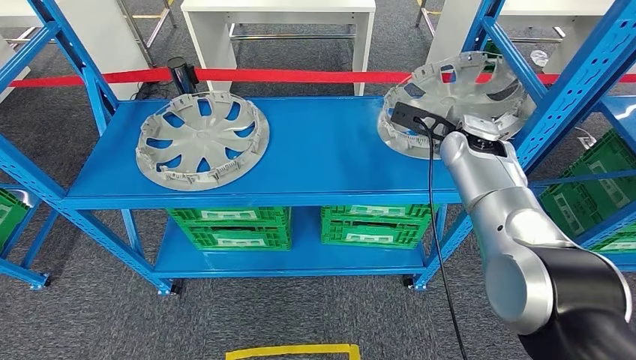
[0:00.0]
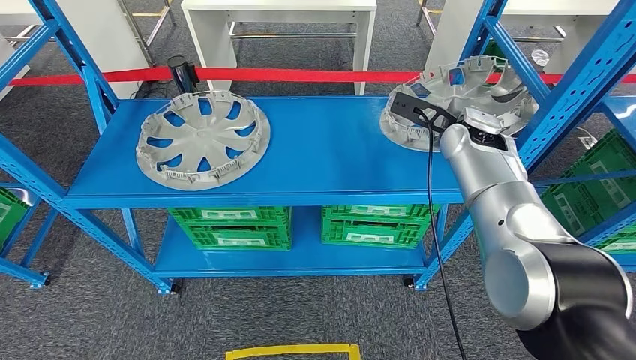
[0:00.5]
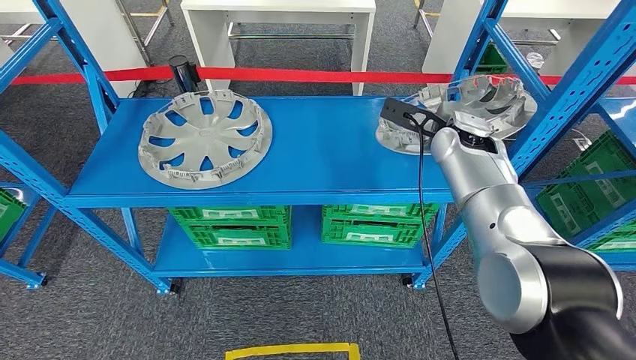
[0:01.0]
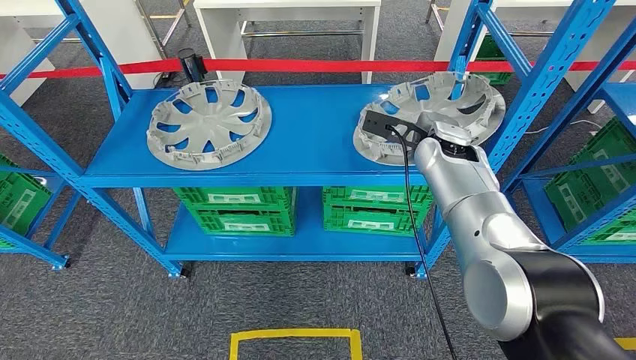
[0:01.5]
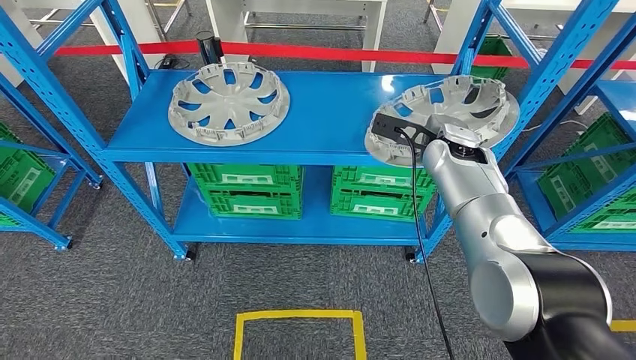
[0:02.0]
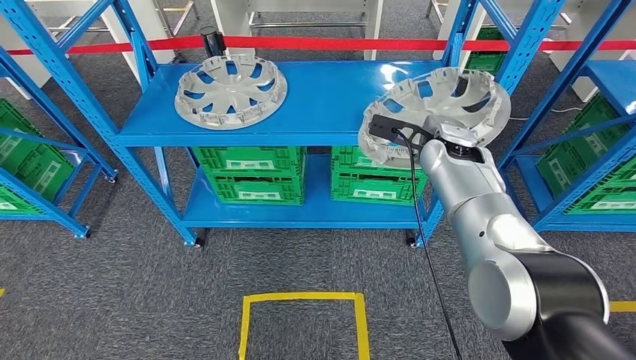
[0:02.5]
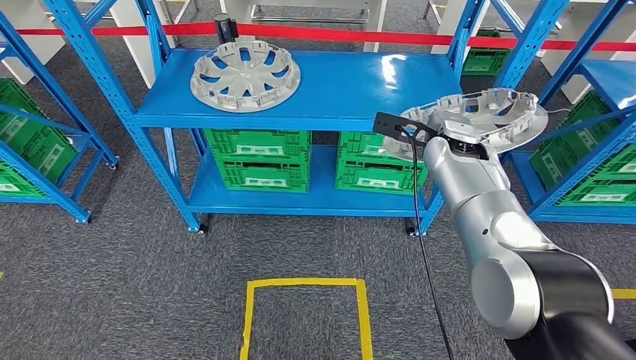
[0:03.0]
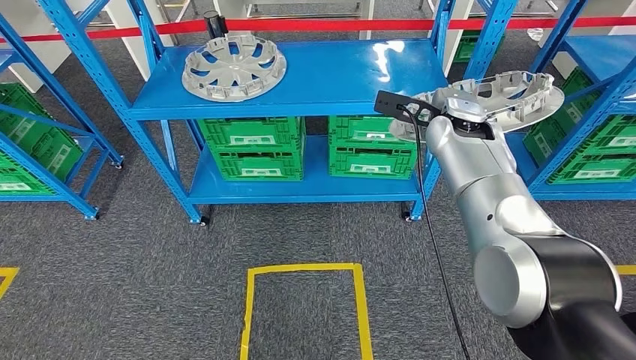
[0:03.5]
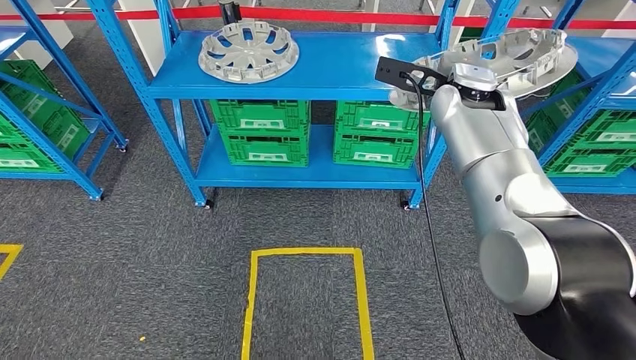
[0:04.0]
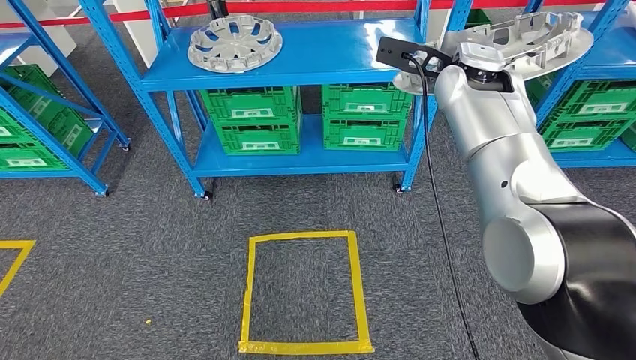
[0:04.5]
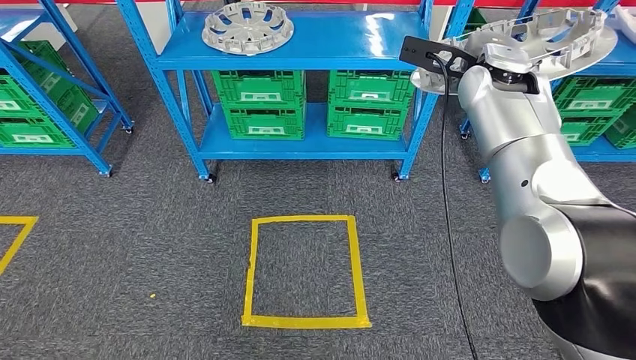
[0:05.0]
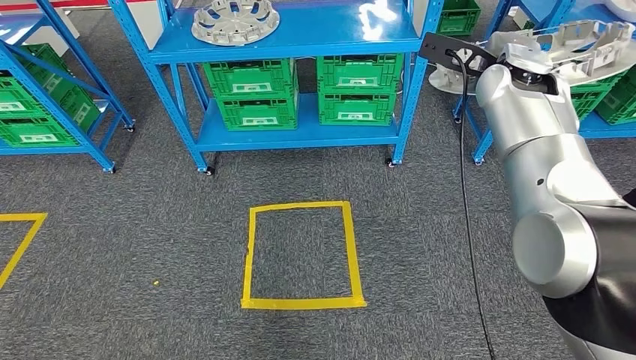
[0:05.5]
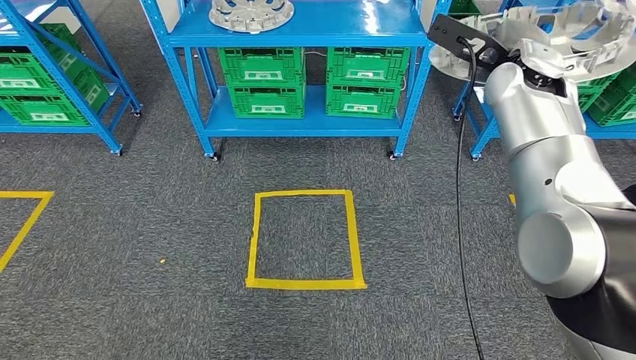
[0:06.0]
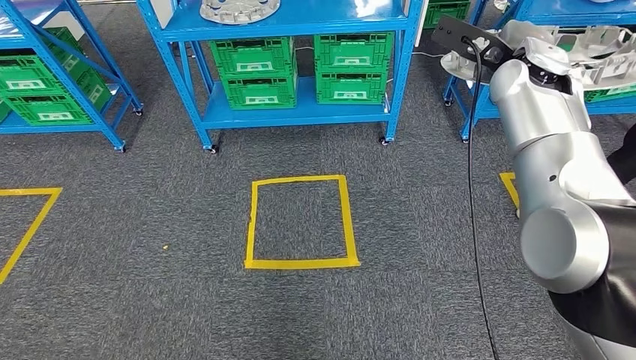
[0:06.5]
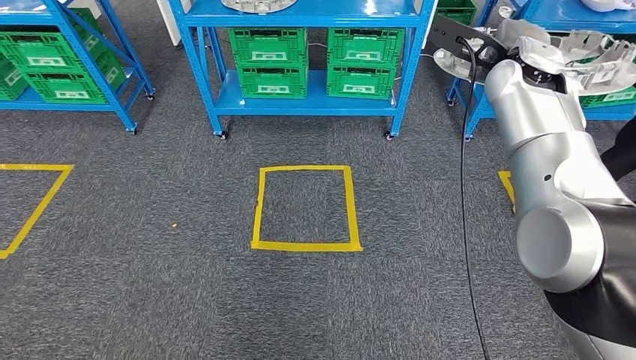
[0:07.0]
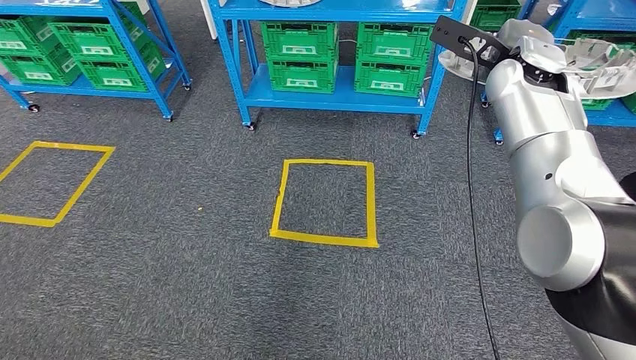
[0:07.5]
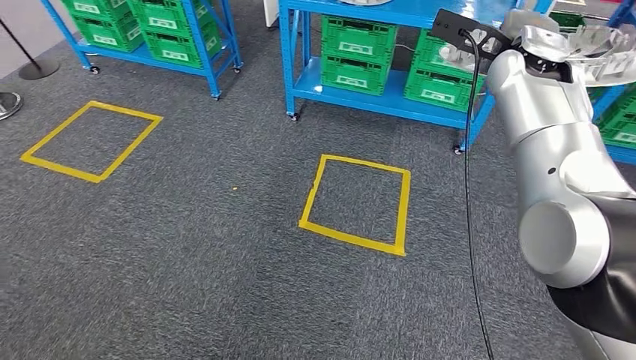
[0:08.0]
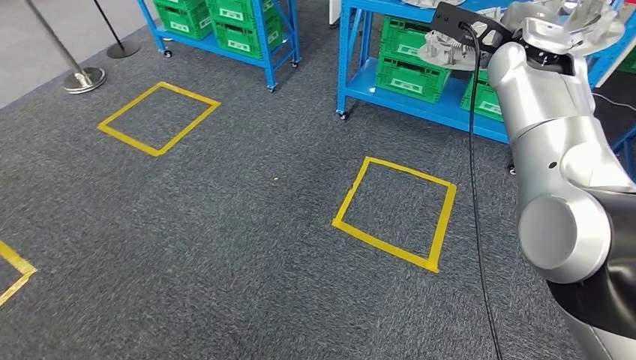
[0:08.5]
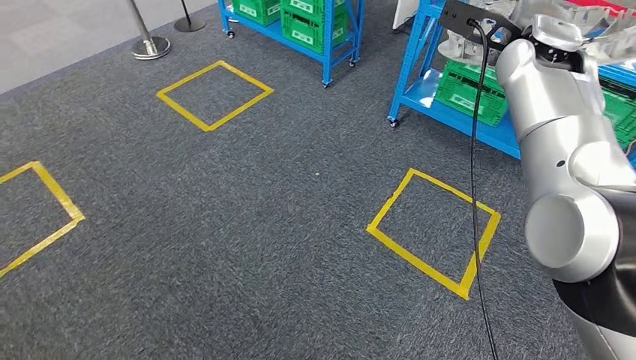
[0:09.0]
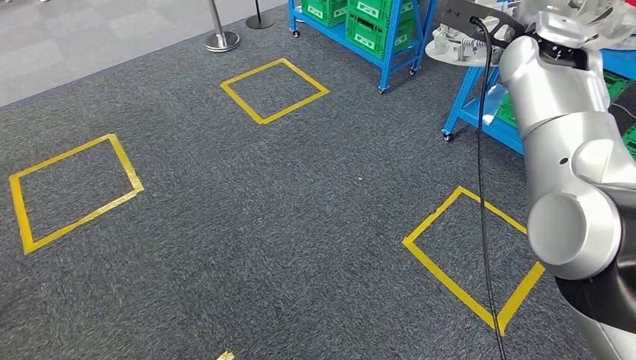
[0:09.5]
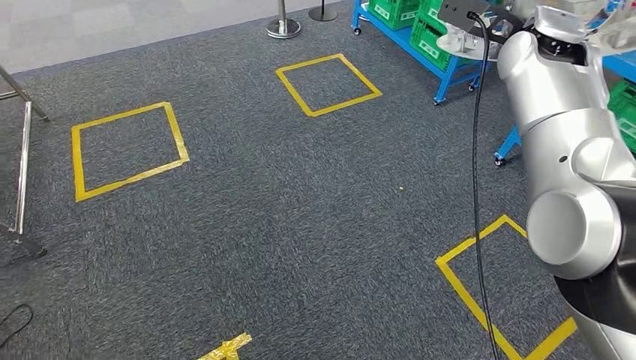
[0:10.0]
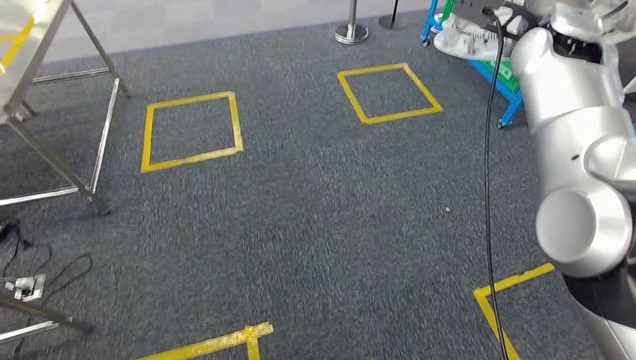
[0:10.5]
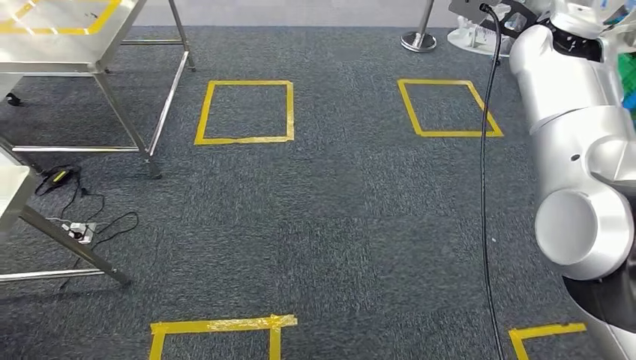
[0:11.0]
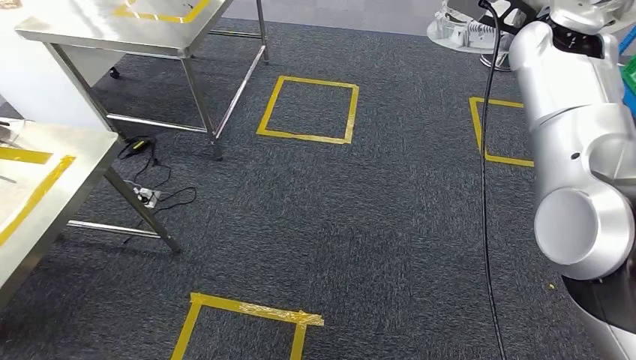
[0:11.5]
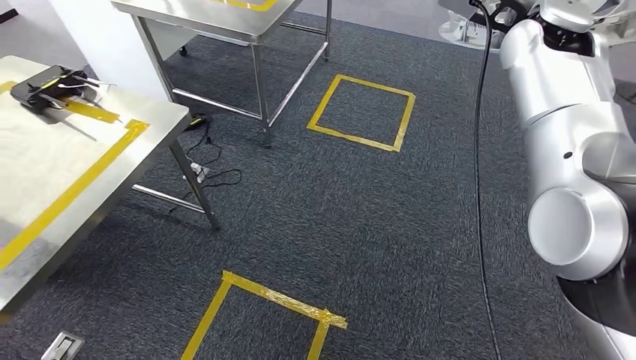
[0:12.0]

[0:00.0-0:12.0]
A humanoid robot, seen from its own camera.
Step, 0:00.0 to 0:02.5: Pick up the small component from the shelf.

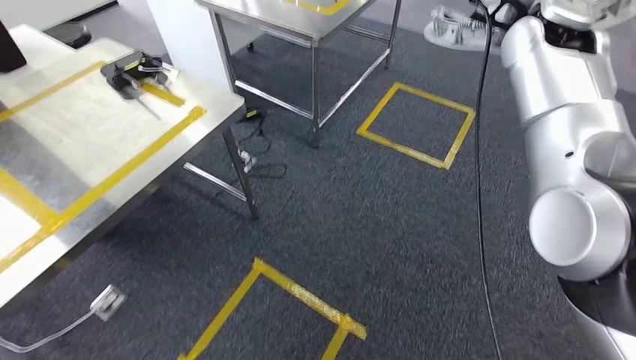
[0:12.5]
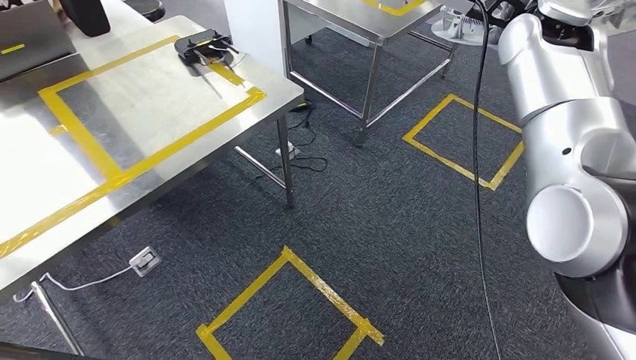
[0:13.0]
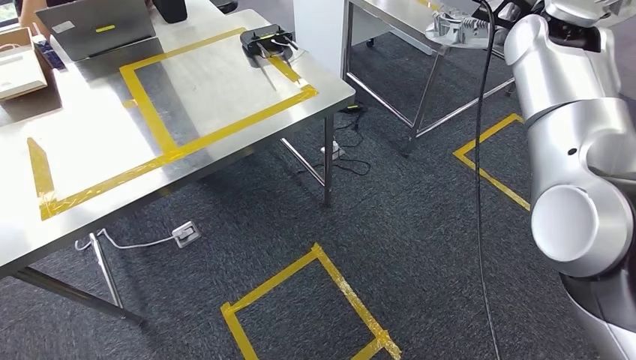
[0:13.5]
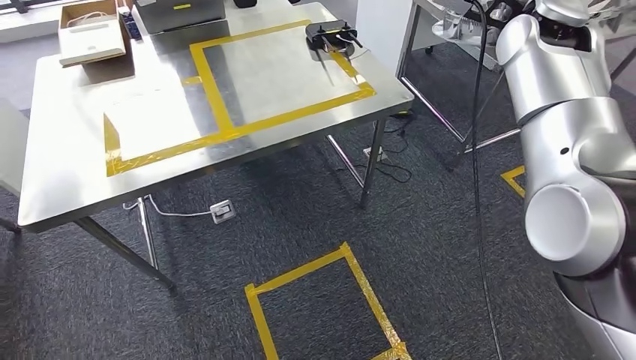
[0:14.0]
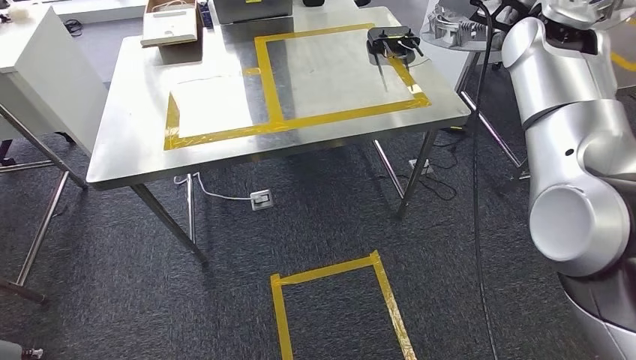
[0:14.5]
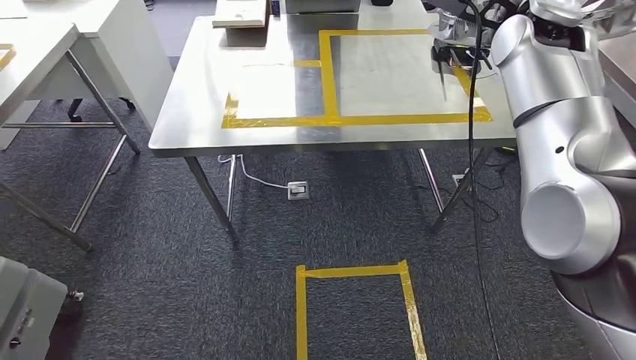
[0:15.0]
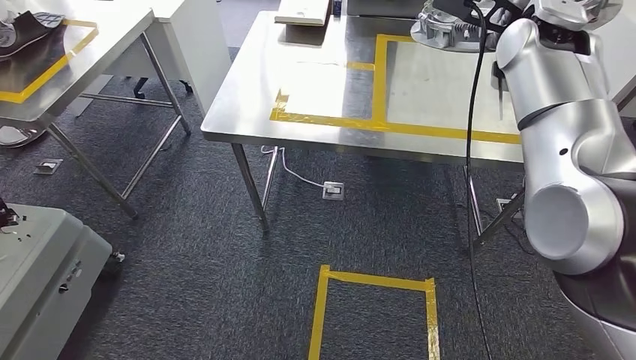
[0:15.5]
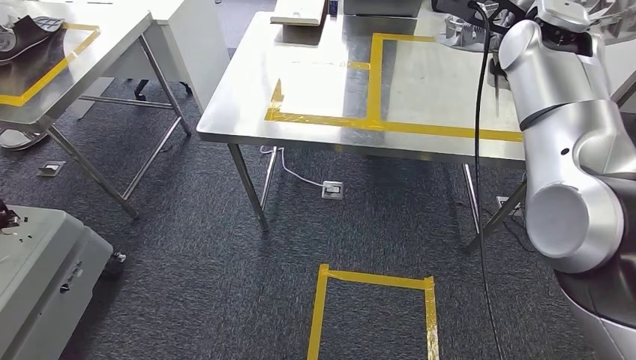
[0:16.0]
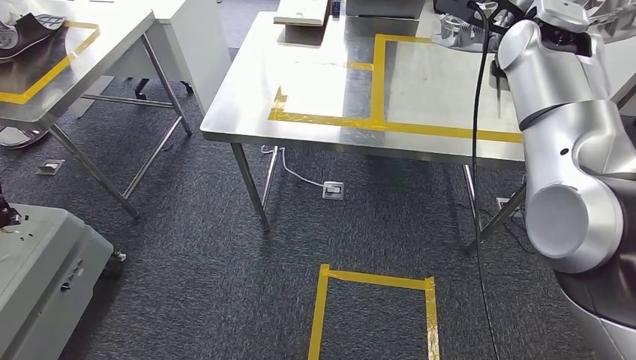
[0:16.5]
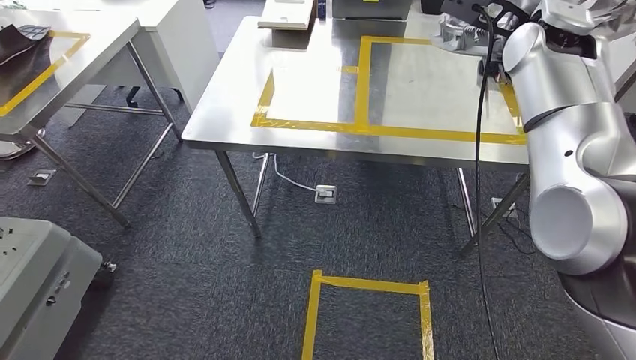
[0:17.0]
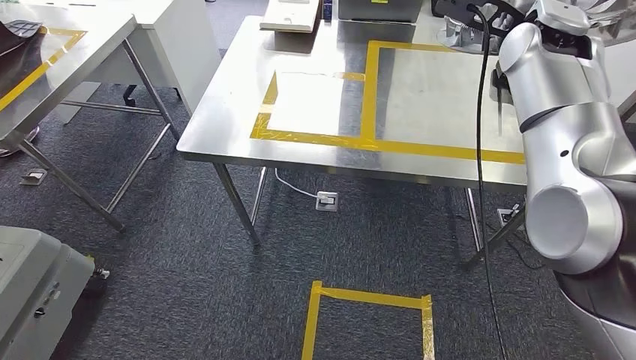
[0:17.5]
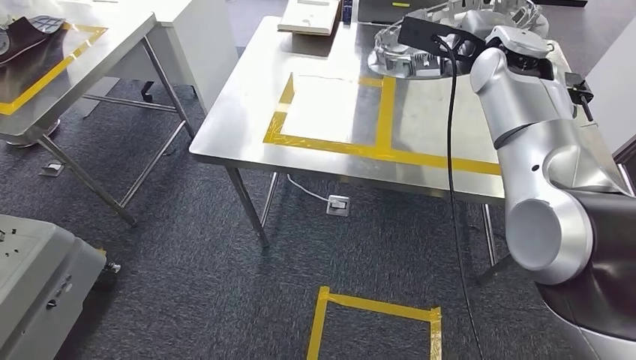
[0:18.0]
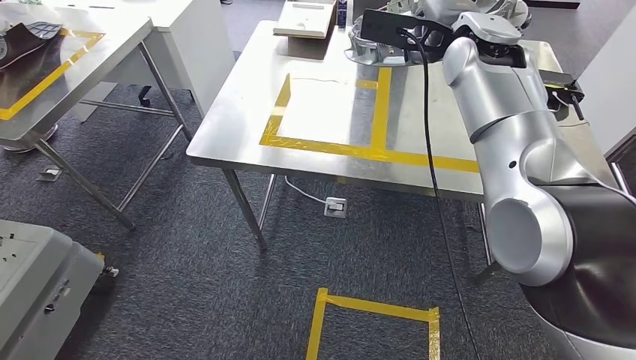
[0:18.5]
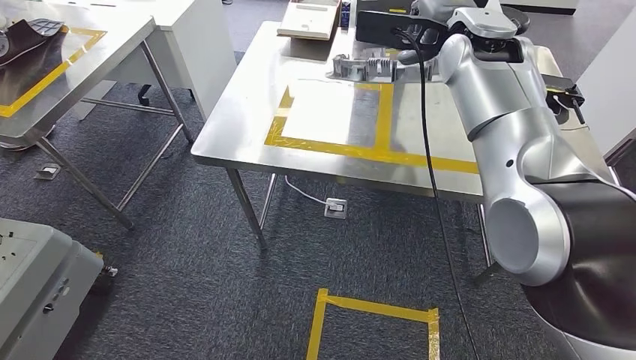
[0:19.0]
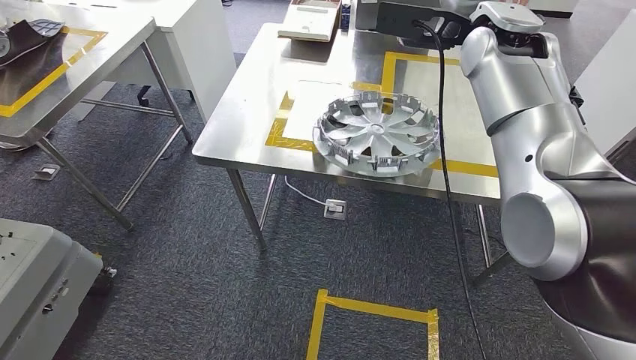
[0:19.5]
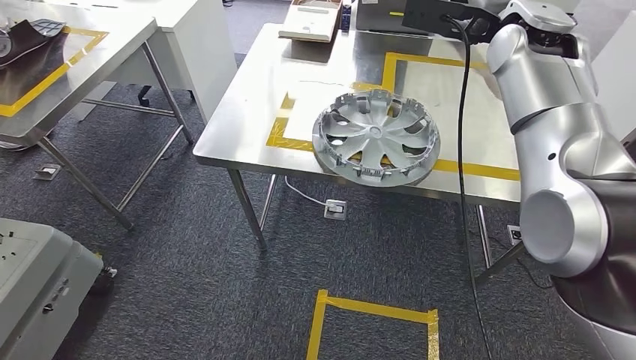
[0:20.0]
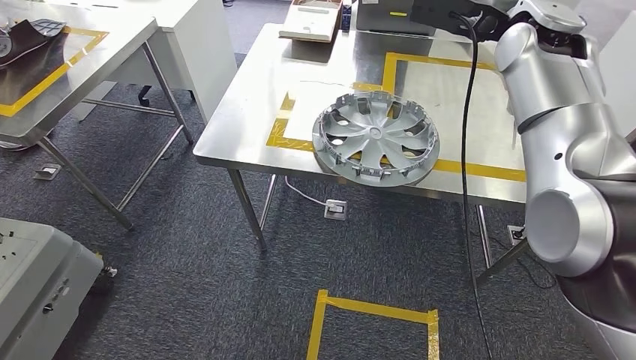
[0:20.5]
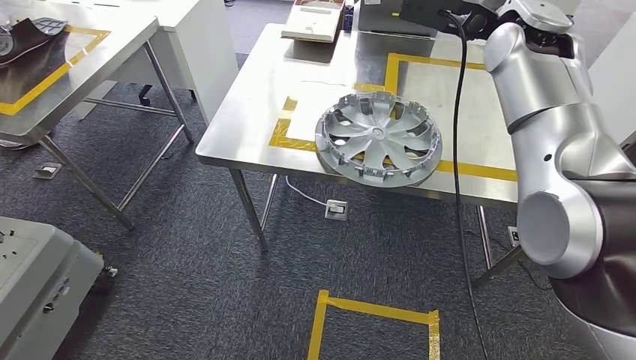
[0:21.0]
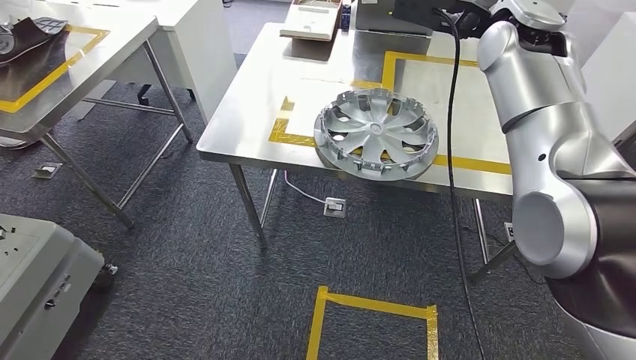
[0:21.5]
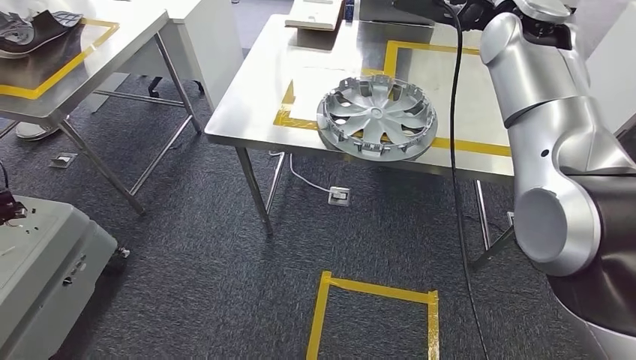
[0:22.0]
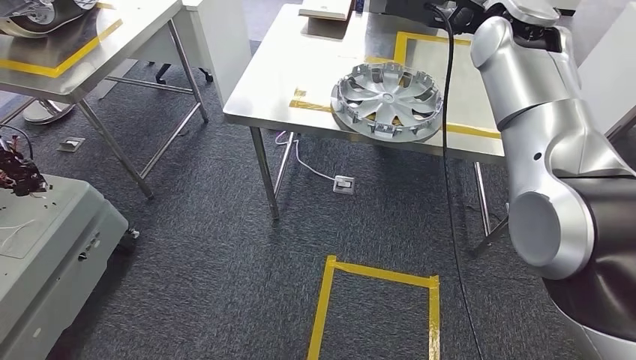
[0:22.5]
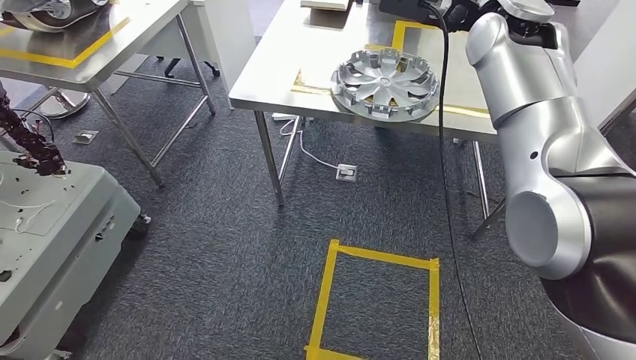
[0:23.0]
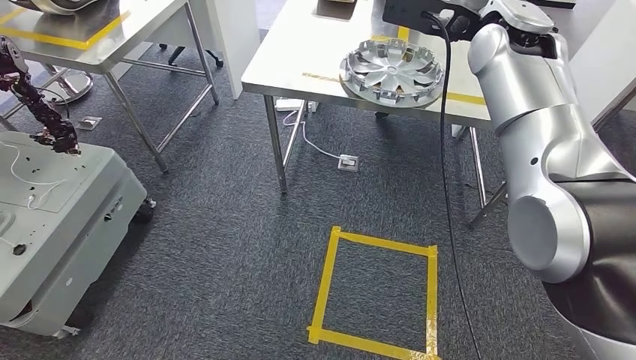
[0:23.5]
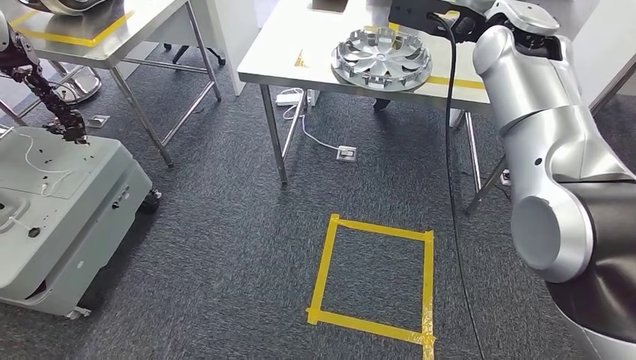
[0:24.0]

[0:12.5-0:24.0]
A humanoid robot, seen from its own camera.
Step, 0:12.5 to 0:17.5: Move the small component to the workbench.
Step, 0:18.0 to 0:21.0: Insert the small component into the corresponding slot on the workbench.
